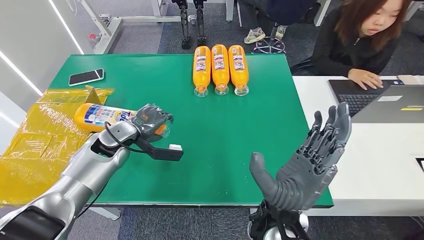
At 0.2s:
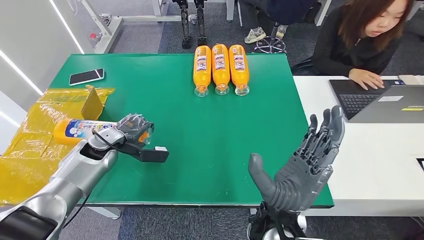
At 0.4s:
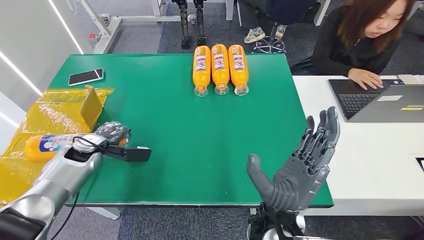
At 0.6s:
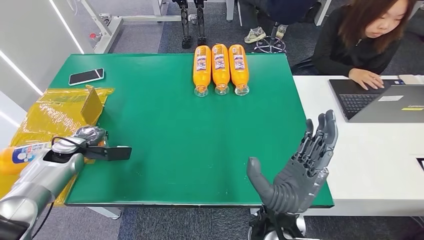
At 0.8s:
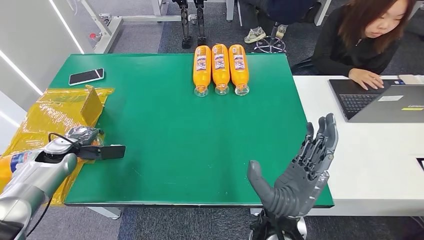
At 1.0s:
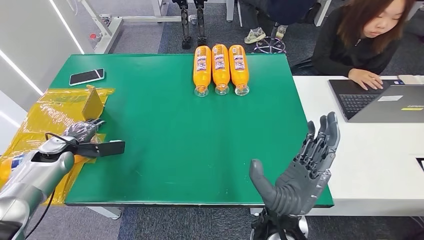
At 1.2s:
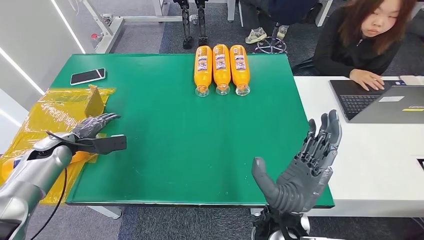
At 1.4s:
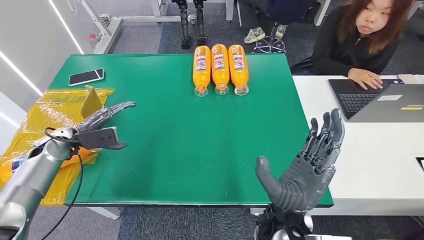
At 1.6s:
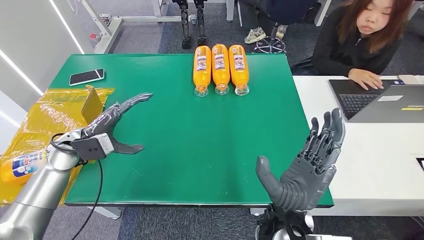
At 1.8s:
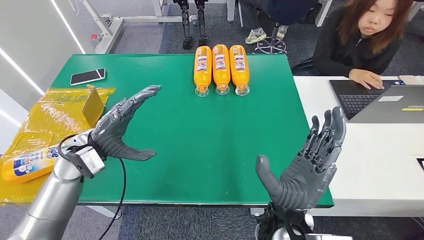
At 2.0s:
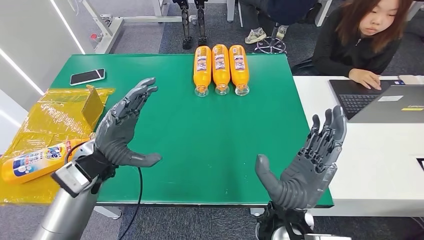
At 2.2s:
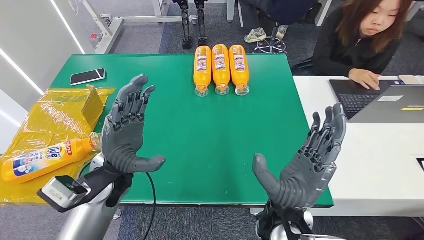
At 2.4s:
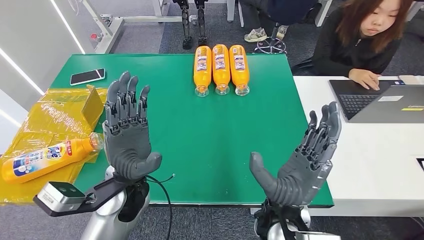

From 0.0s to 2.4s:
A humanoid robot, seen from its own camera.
Step, from 0.0s to 2.4s: Turn the bottle to the front side.
From 0.0s to 1.2s: The left hand heads to the left, covering about 20 cm.
From 1.2s to 2.4s: The left hand is displaced to the right by approximately 35 cm.
